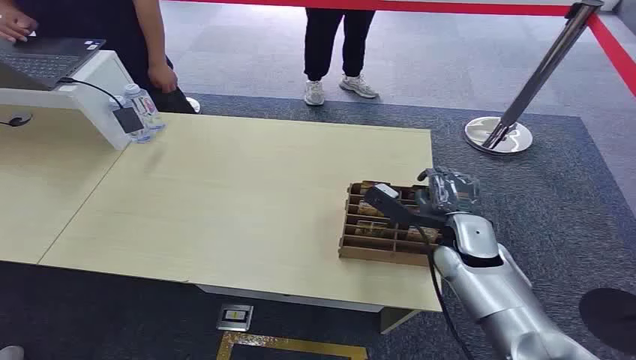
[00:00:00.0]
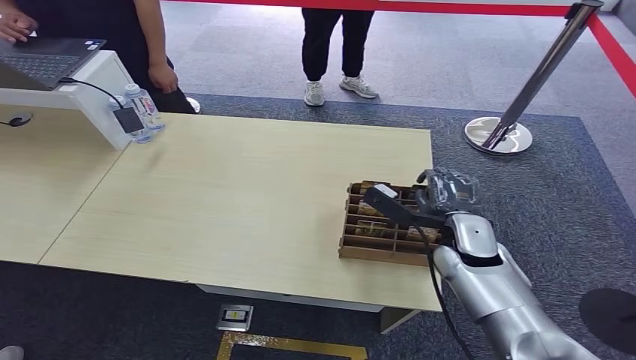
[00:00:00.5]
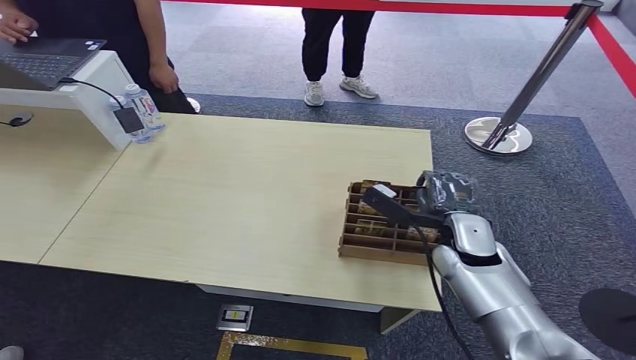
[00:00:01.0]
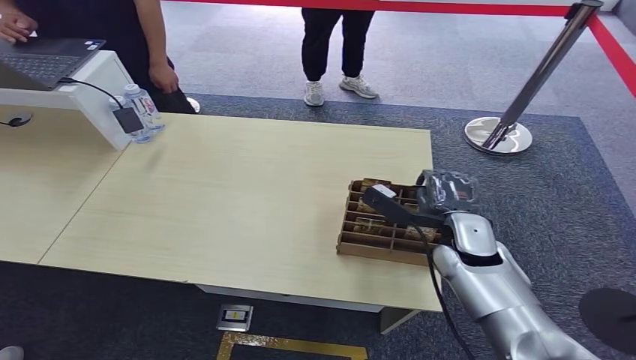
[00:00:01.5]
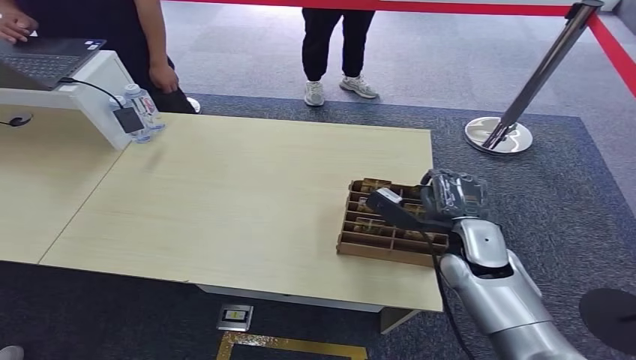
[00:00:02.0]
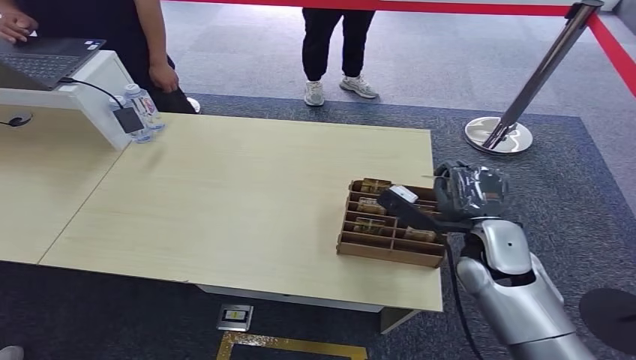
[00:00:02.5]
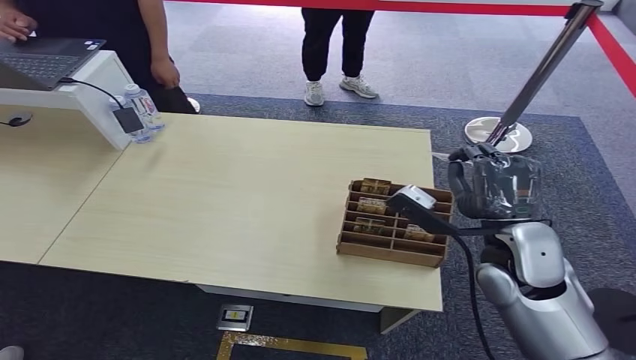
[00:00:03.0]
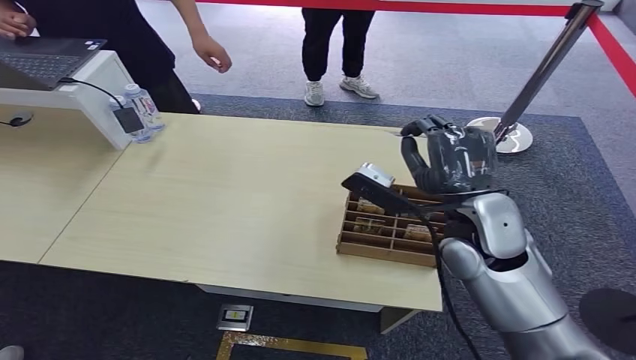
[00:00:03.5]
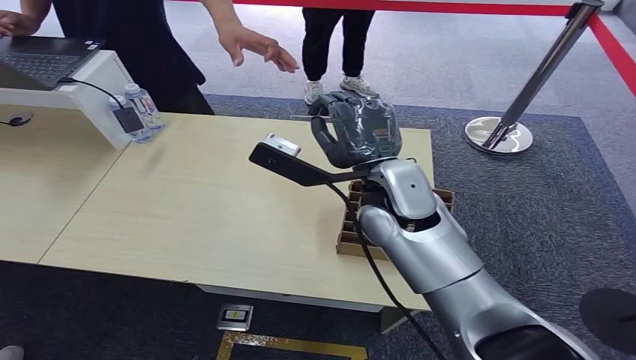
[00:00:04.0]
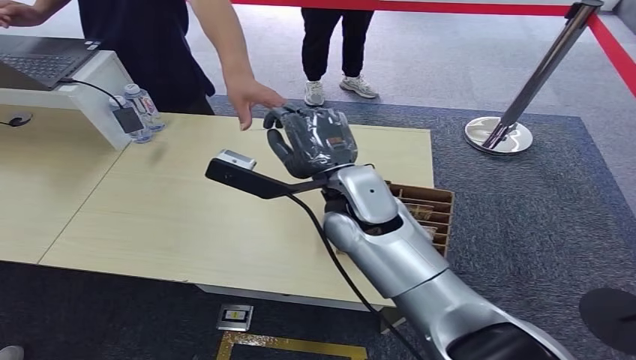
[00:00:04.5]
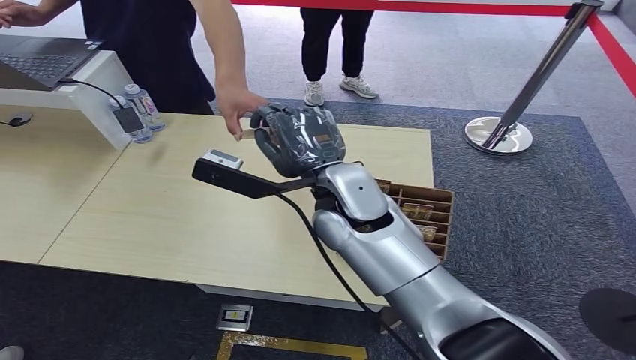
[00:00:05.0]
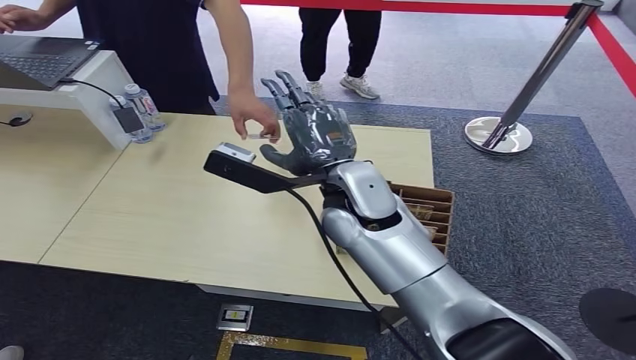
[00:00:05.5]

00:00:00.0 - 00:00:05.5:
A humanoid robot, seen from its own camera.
Step, 00:00:00.0 - 00:00:02.5: Pick up the key card from the card box.
Step, 00:00:03.0 - 00:00:05.5: Hand the key card to the target.
00:00:02.0 - 00:00:03.5: The right hand goes some 10 cm upward.

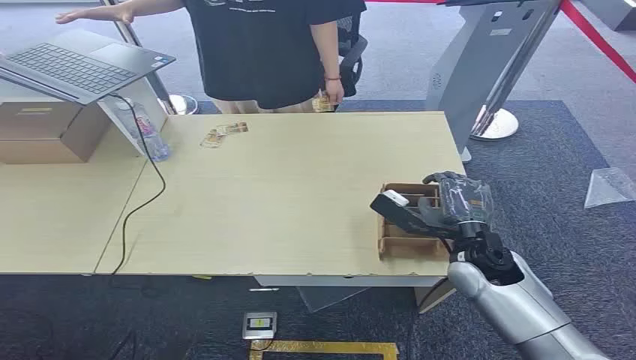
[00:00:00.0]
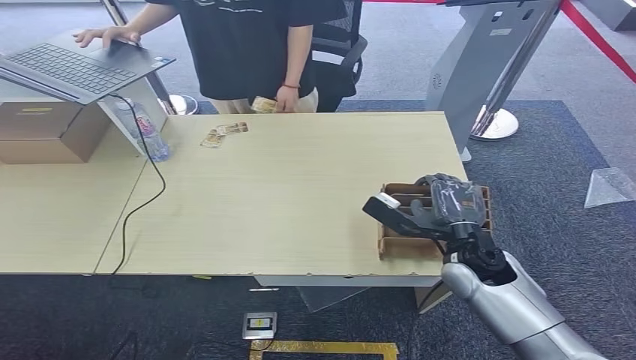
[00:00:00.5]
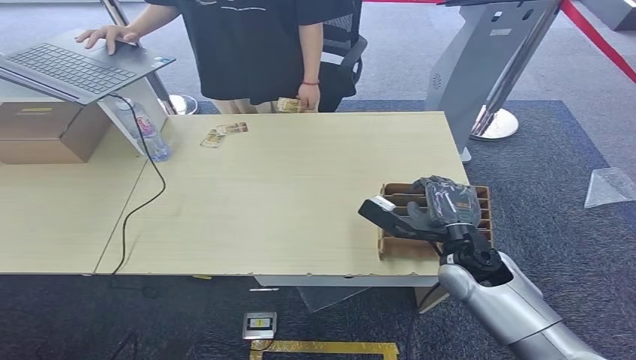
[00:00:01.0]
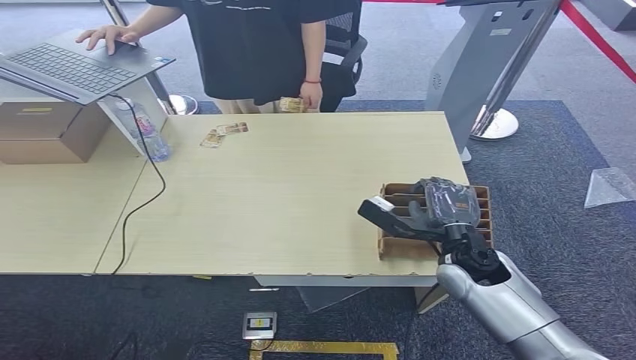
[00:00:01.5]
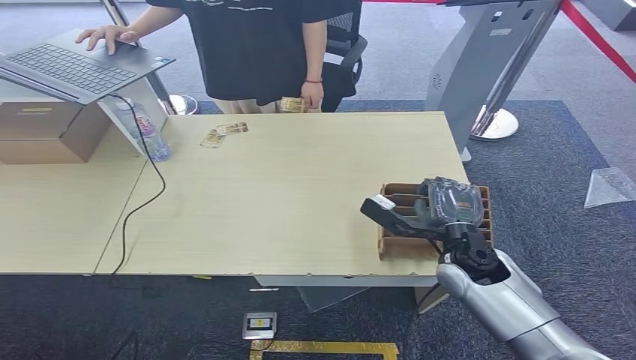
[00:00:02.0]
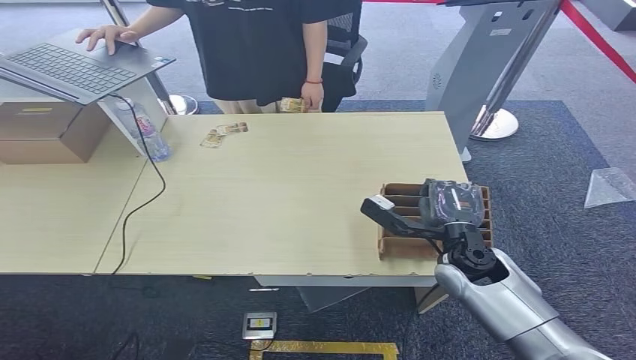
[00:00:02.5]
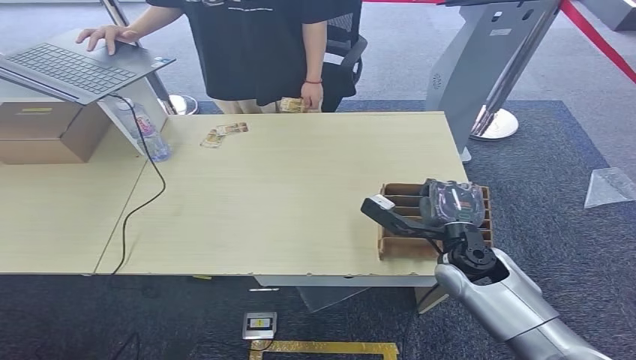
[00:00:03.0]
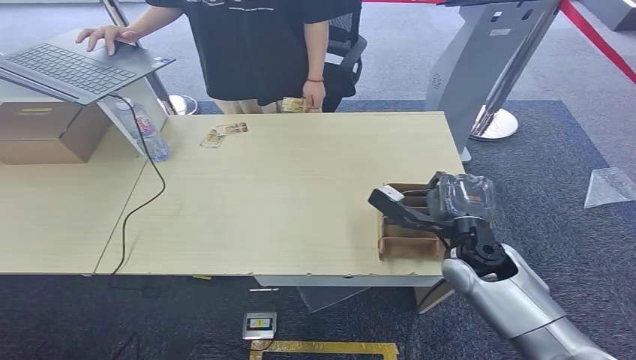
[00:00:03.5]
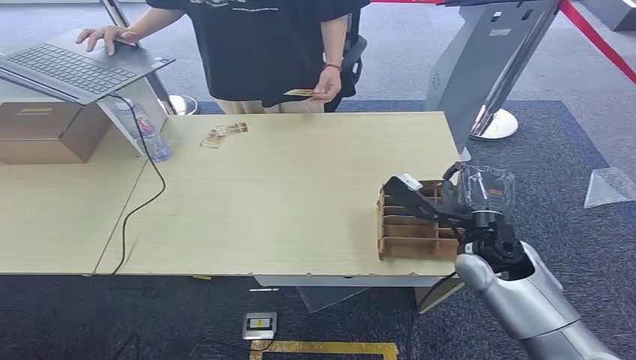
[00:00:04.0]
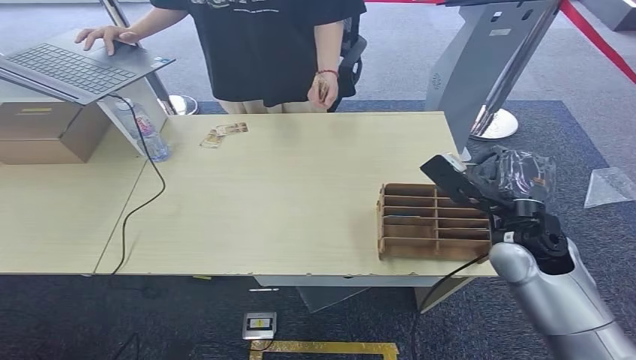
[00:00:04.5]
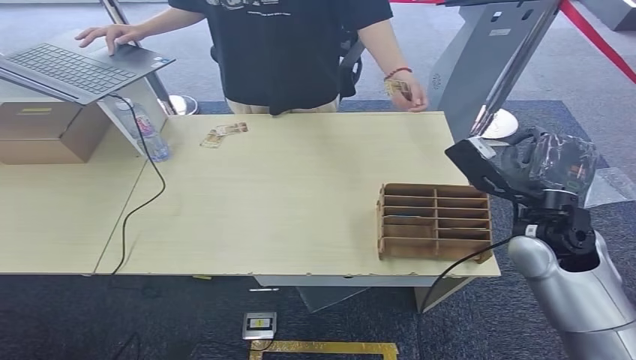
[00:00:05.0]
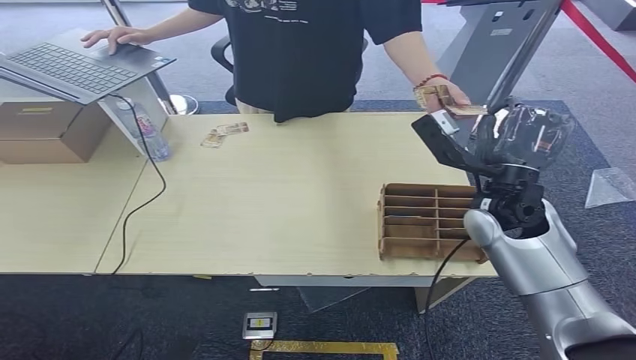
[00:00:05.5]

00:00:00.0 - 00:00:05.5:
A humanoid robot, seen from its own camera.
Step, 00:00:00.0 - 00:00:04.5: Pick up the key card from the card box.
Step, 00:00:05.0 - 00:00:05.5: Hand the key card to the target.
00:00:02.0 - 00:00:03.5: The hands stay close to where they were, moving slightly.
00:00:03.5 - 00:00:05.5: The right hand is displaced upward by some 10 cm.
